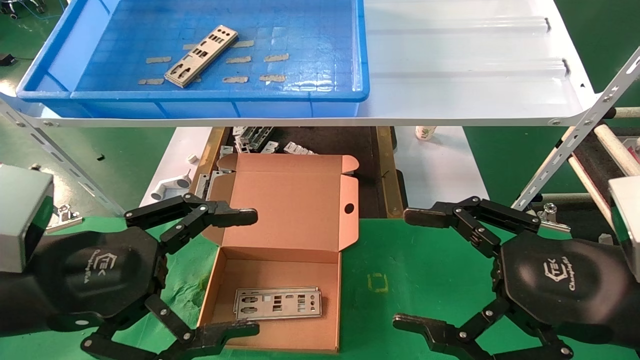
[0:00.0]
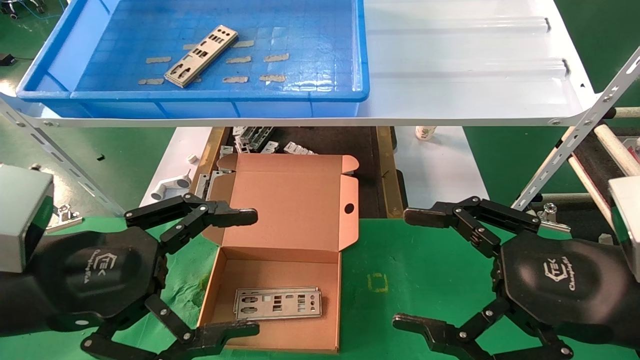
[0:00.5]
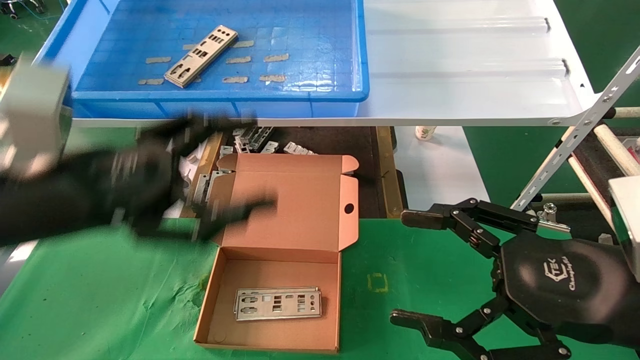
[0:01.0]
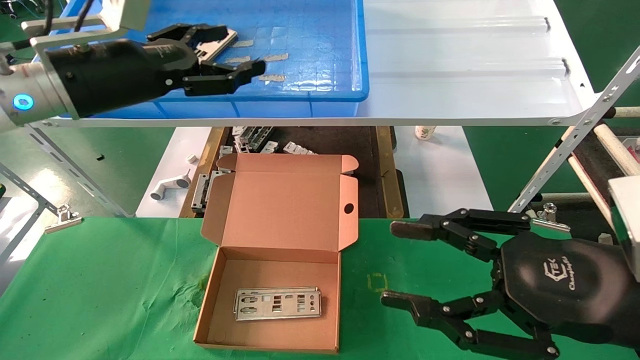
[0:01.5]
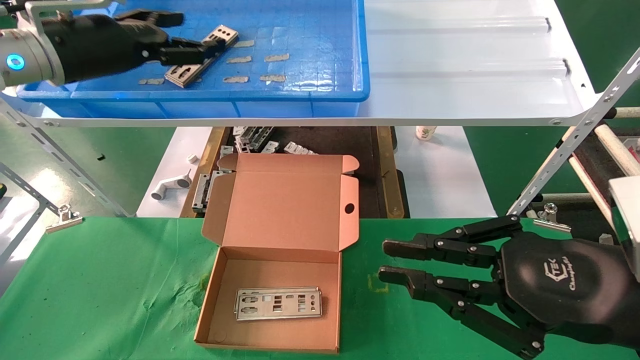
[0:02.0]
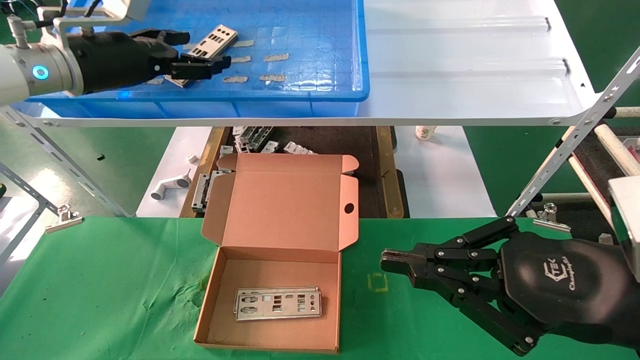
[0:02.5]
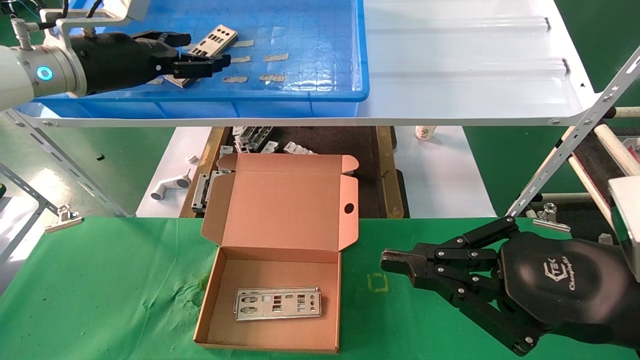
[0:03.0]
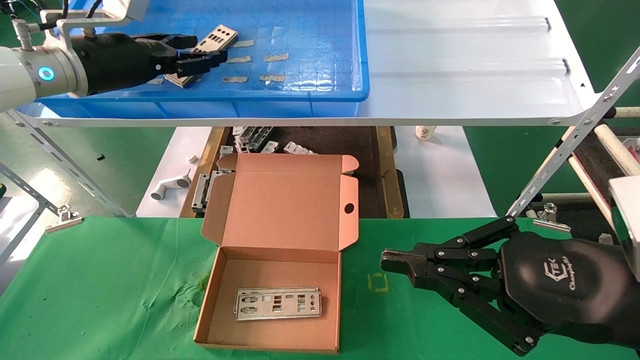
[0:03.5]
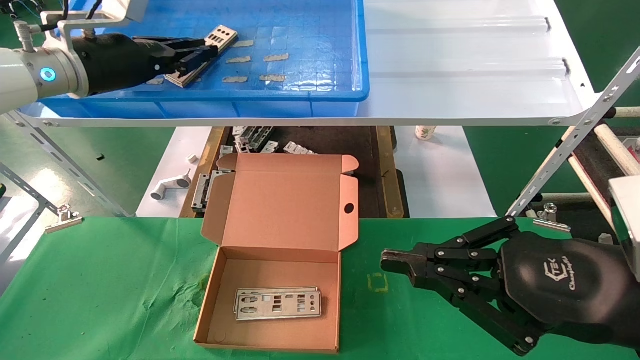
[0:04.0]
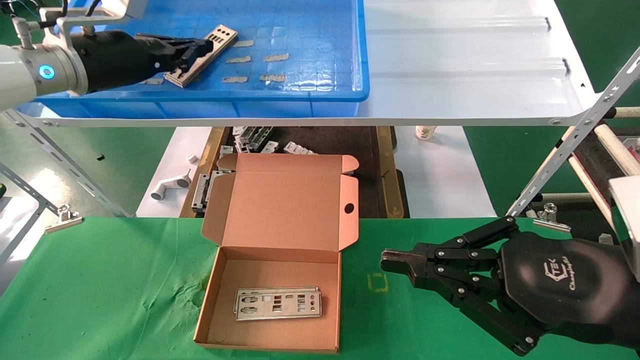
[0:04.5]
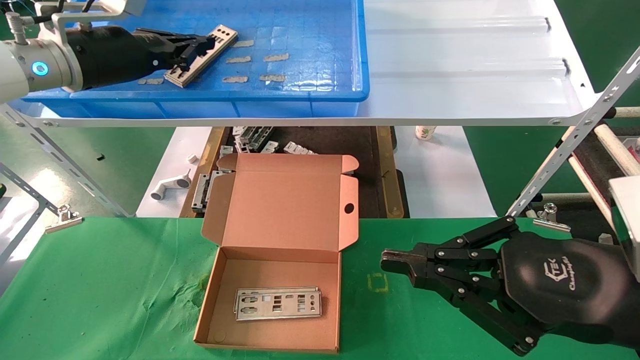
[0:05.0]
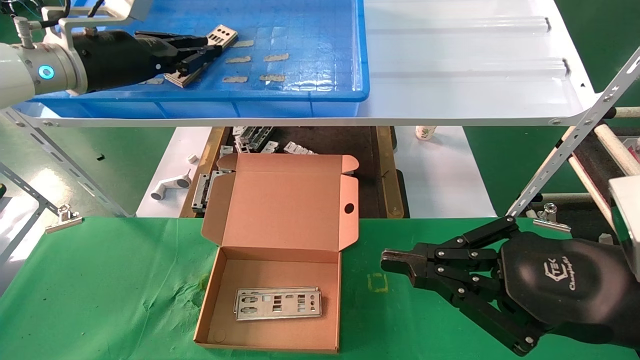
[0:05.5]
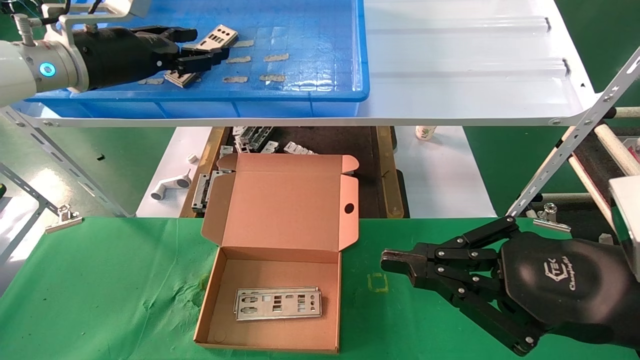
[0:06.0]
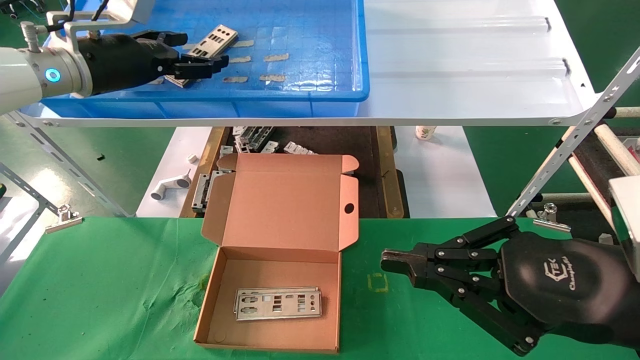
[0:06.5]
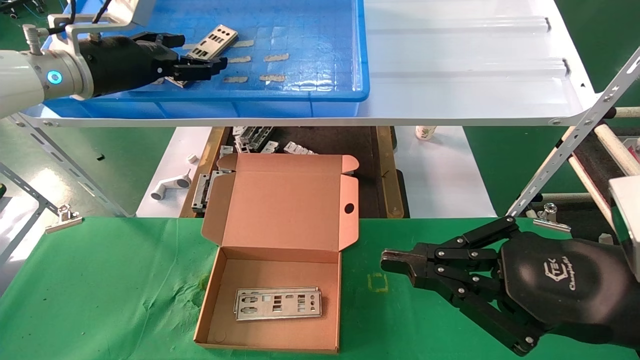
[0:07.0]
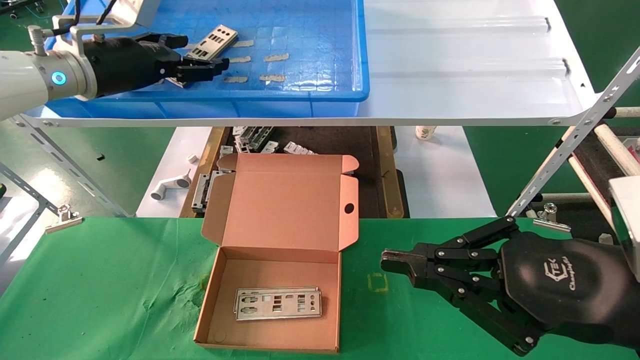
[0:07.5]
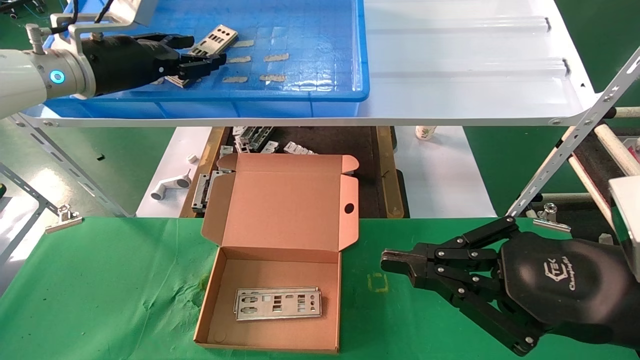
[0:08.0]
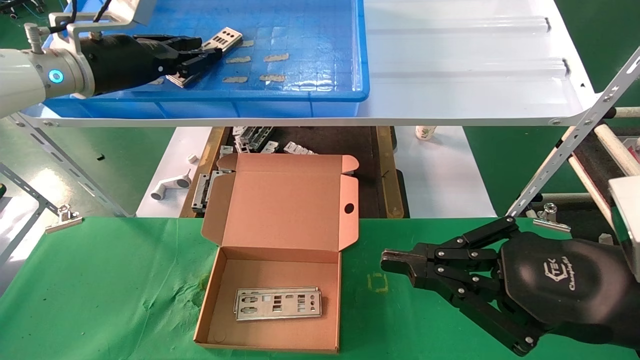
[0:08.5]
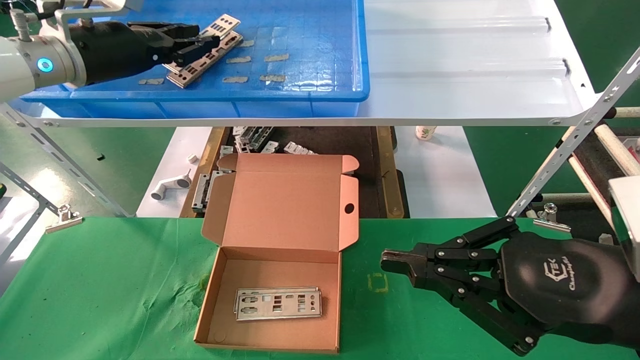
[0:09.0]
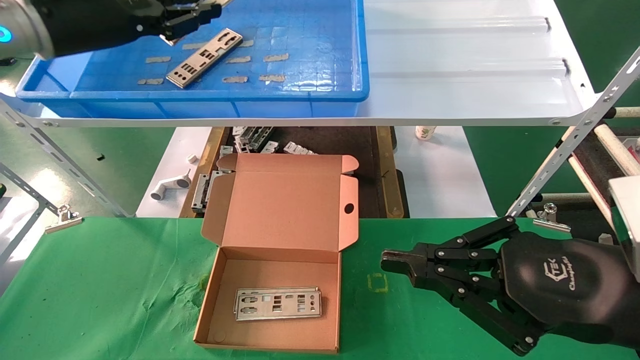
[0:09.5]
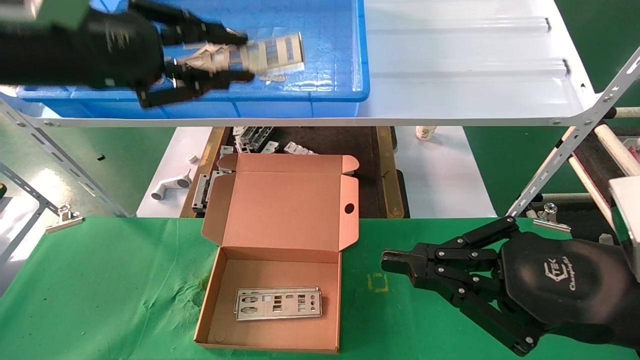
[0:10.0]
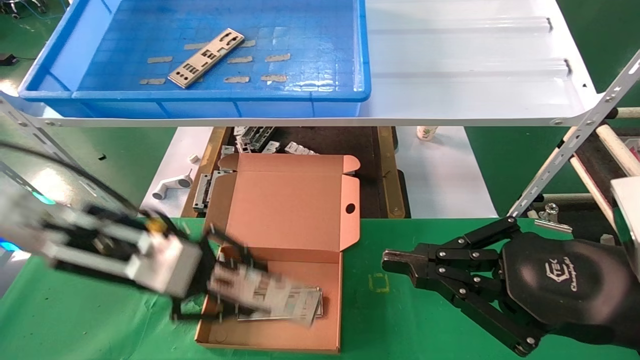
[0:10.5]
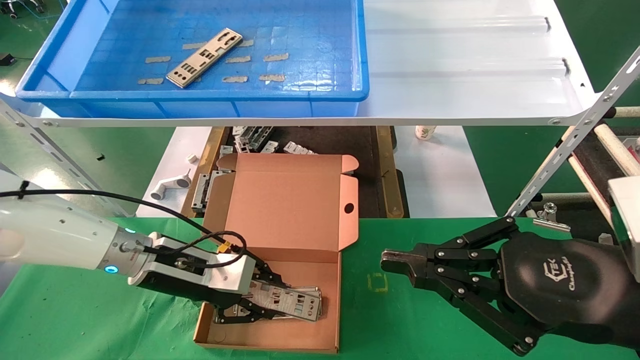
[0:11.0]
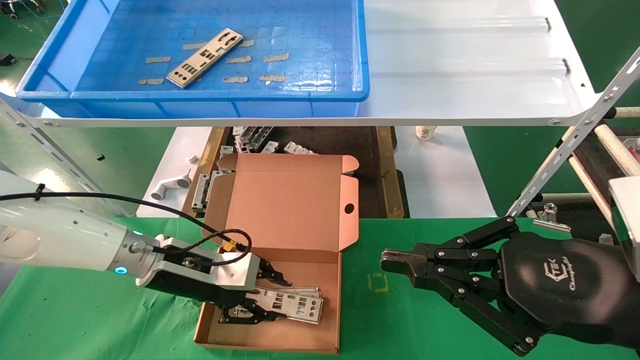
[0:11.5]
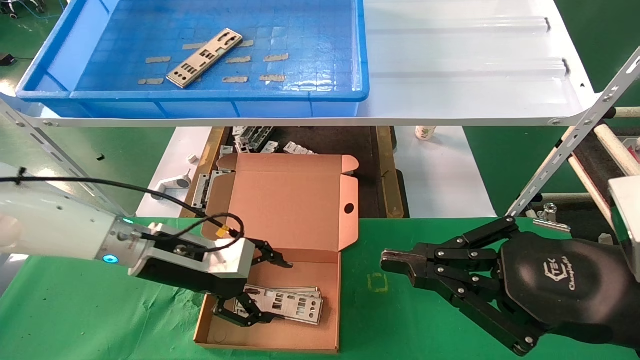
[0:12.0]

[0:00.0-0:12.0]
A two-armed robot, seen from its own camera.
Task of the whole recording: pick up the parts on the tray and put them in the cardboard box.
Step, 0:01.5 to 0:09.0: Pick up the IO bracket from the container box.
Step, 0:09.5 to 0:11.5: Place the IO bracket into the ingredient slot.
0:00.0 to 0:02.0: The right gripper closes up. Meanwhile the left gripper heads forward and upward, covering some 25 cm.
0:02.0 to 0:04.0: The left gripper closes.
0:04.0 to 0:08.0: Neither gripper changes place.
0:08.0 to 0:10.0: The left gripper is displaced backward by roughly 15 cm, and closes up.
0:10.0 to 0:12.0: The left gripper is displaced downward by approximately 25 cm, and opens.

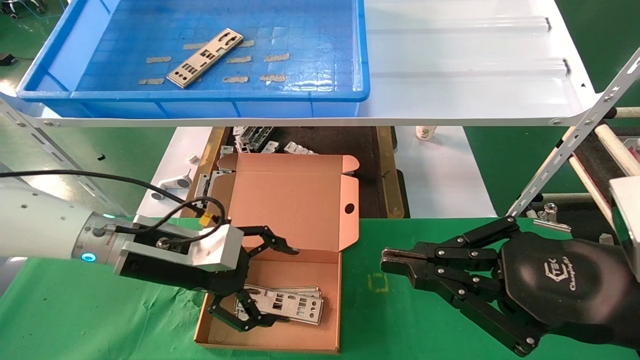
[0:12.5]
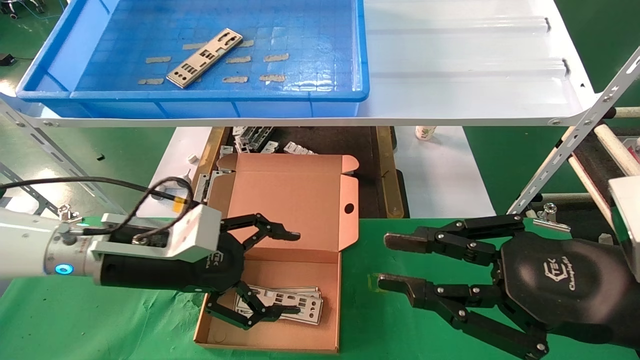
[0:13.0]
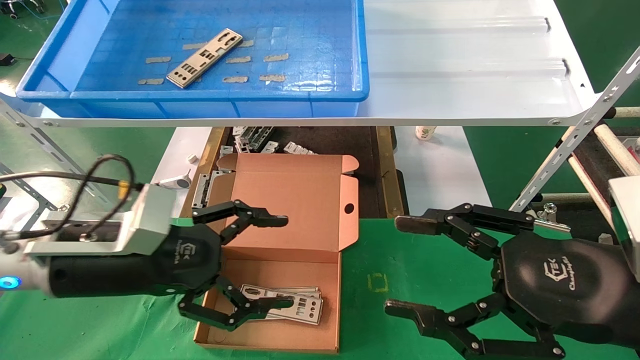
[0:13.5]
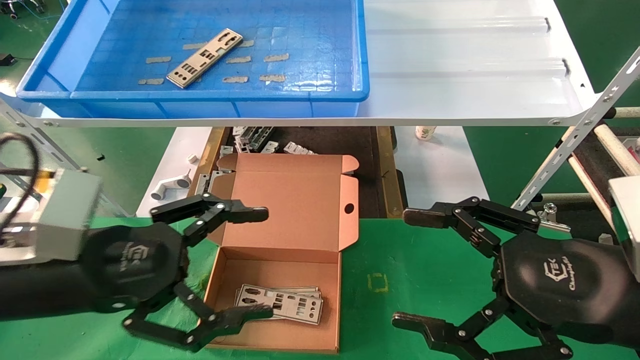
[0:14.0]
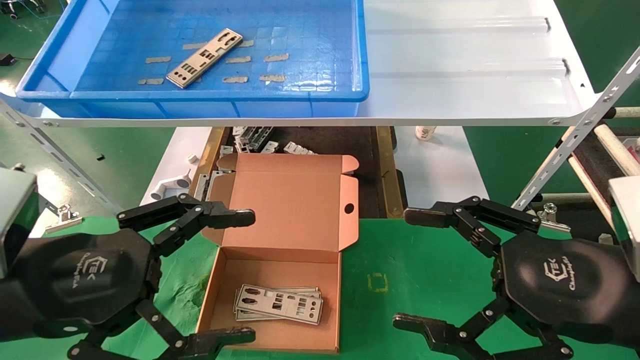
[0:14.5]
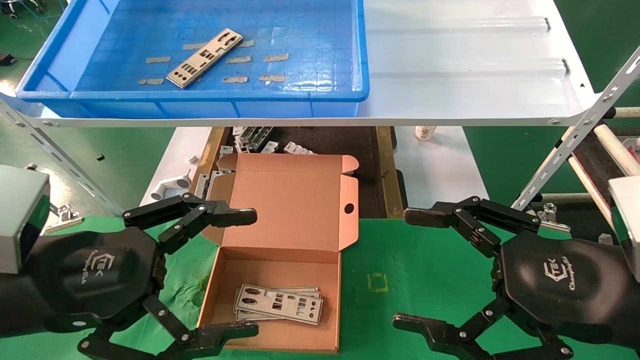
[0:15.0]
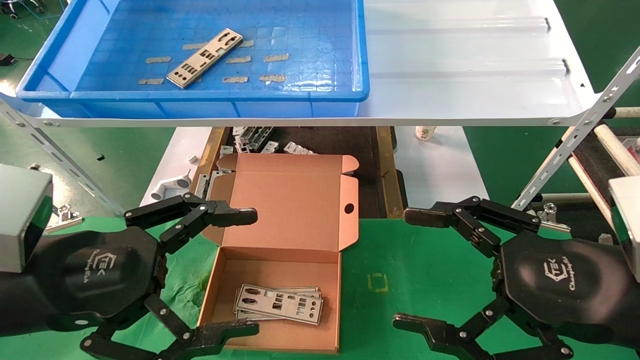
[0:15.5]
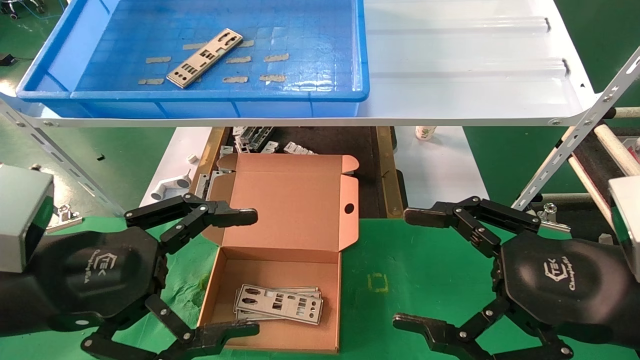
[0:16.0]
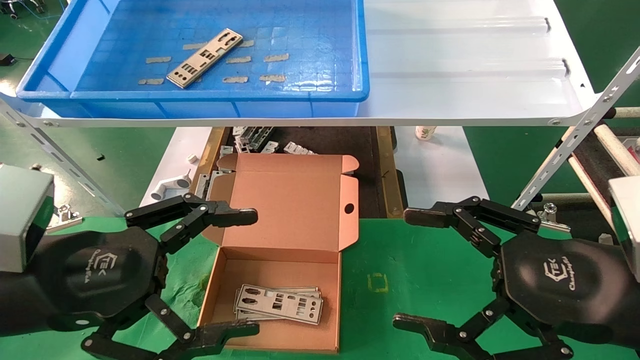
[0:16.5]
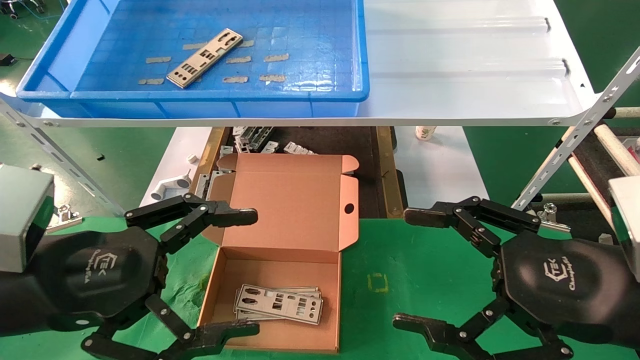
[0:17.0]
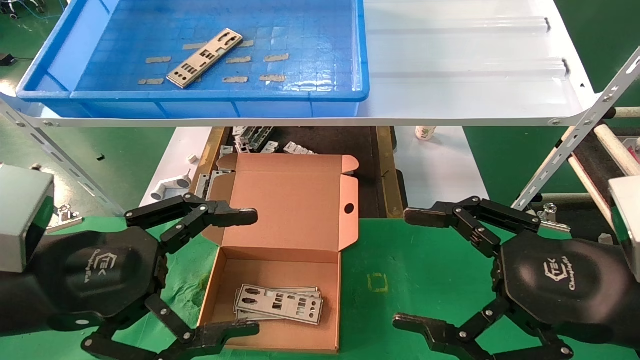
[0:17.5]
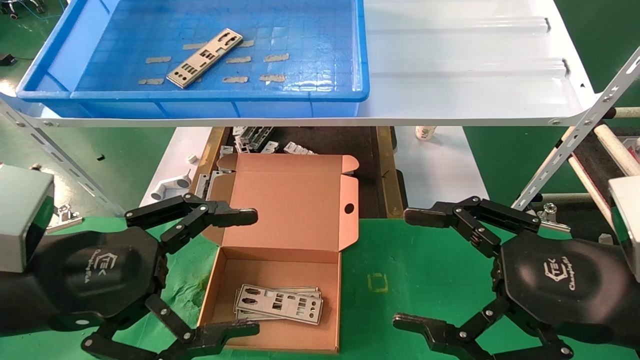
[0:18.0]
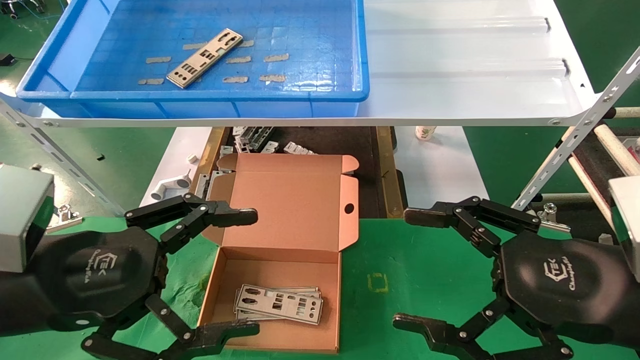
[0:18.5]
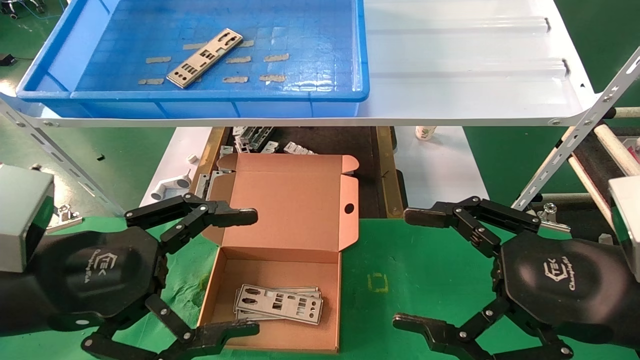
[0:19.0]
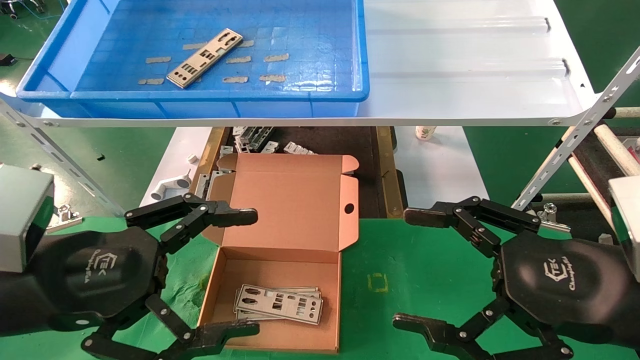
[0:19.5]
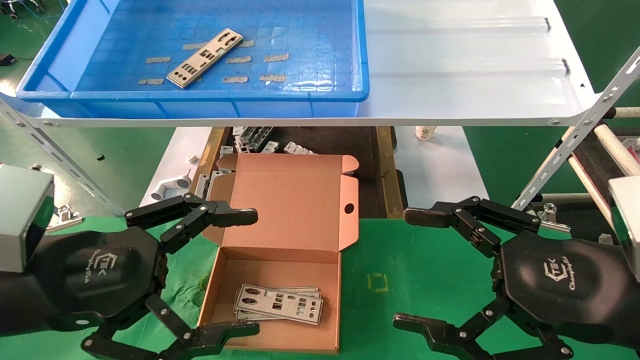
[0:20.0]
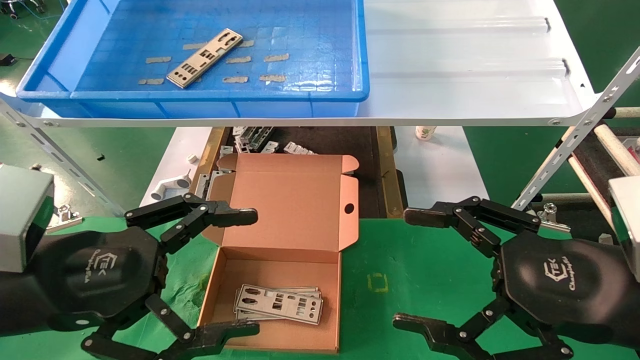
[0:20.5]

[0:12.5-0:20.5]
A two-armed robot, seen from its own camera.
Task of the whole recording: pick up the parts on the tray and put them in the cardboard box.
0:12.5 to 0:14.5: The left gripper goes some 15 cm backward. Meanwhile the right gripper opens.
0:14.5 to 0:20.5: Both grippers stay about where they are.
